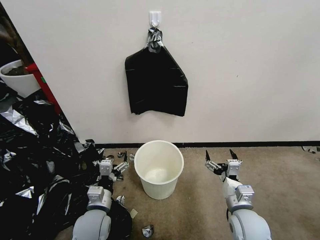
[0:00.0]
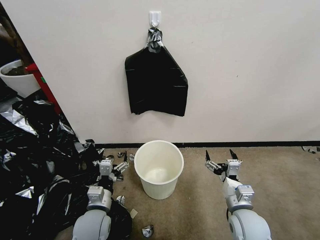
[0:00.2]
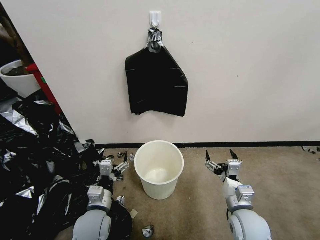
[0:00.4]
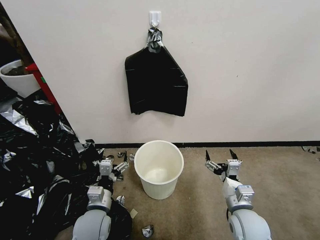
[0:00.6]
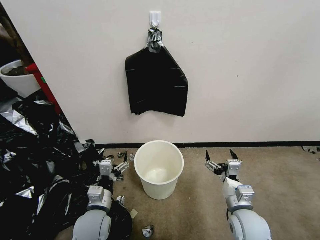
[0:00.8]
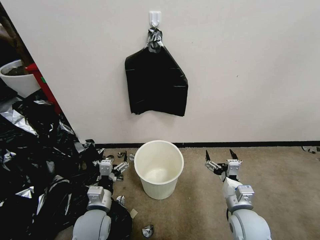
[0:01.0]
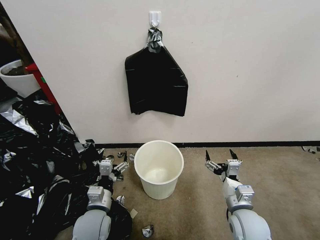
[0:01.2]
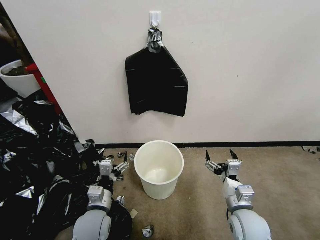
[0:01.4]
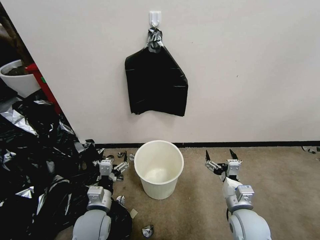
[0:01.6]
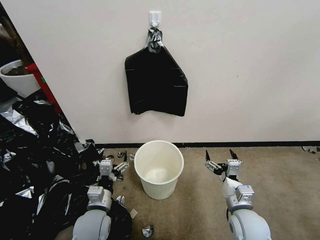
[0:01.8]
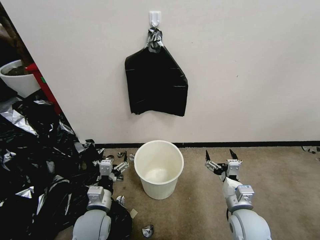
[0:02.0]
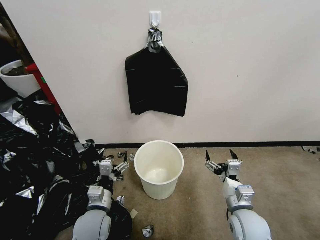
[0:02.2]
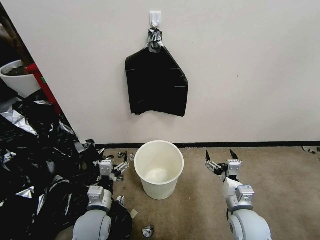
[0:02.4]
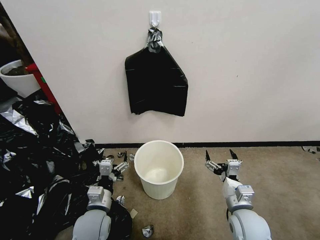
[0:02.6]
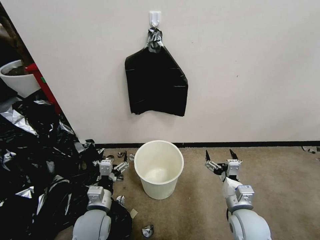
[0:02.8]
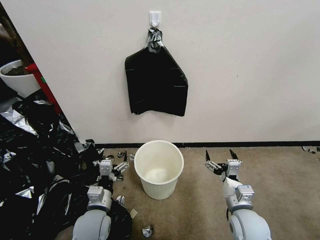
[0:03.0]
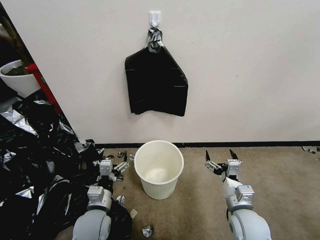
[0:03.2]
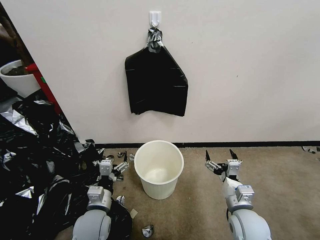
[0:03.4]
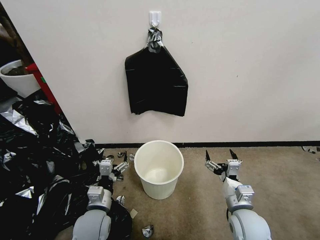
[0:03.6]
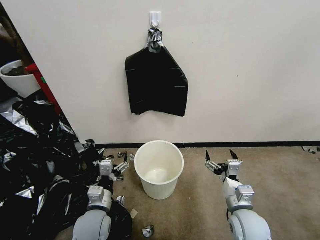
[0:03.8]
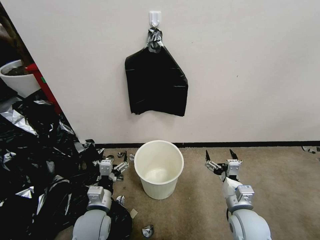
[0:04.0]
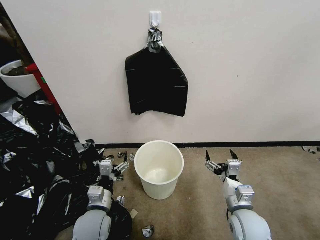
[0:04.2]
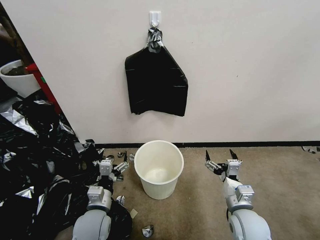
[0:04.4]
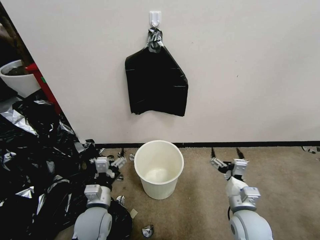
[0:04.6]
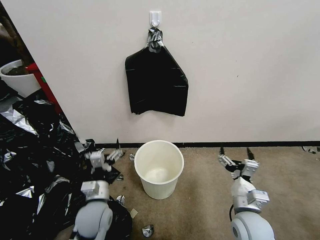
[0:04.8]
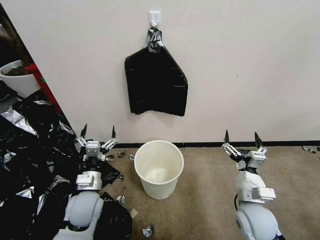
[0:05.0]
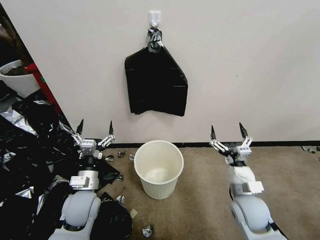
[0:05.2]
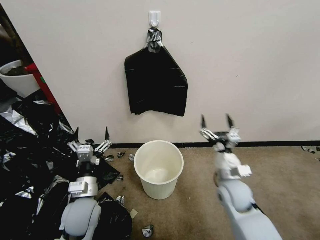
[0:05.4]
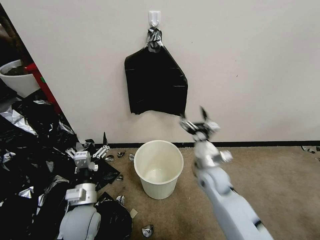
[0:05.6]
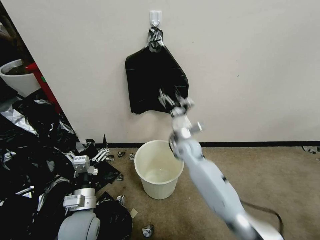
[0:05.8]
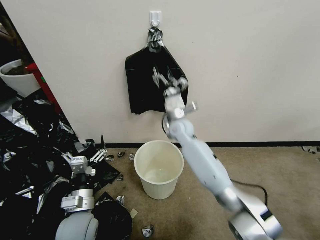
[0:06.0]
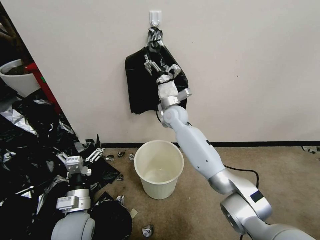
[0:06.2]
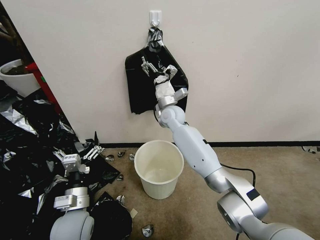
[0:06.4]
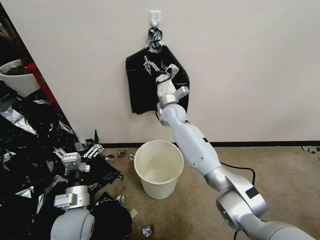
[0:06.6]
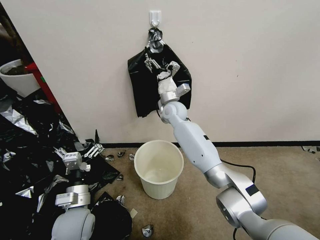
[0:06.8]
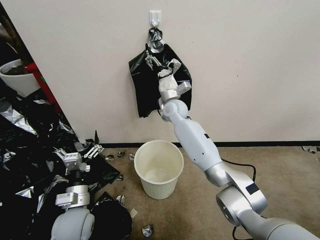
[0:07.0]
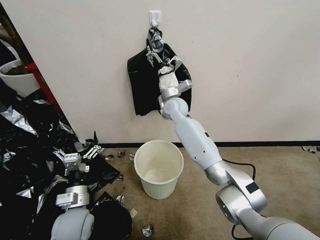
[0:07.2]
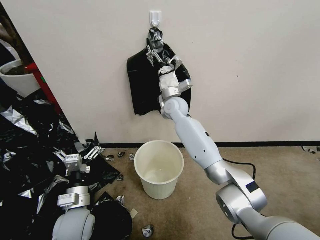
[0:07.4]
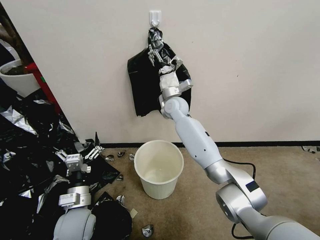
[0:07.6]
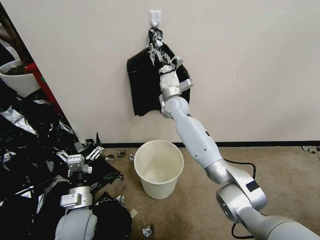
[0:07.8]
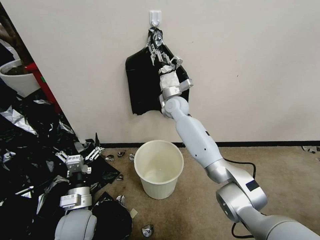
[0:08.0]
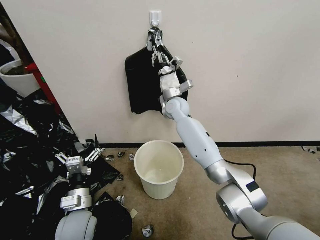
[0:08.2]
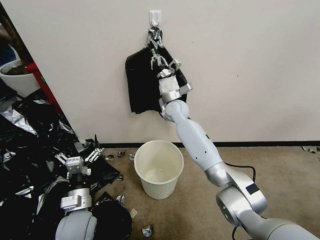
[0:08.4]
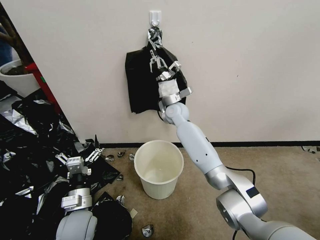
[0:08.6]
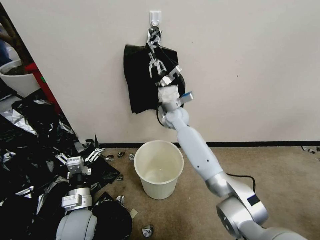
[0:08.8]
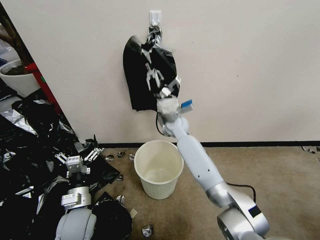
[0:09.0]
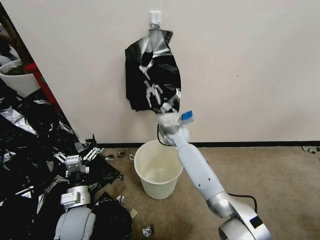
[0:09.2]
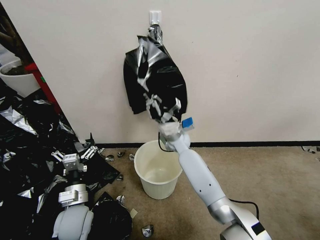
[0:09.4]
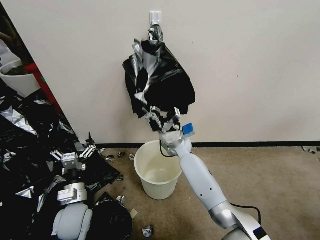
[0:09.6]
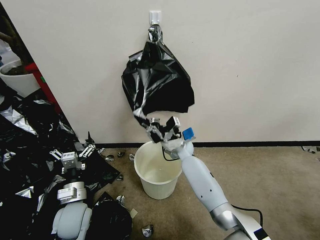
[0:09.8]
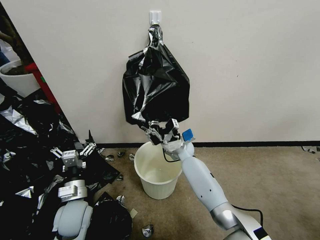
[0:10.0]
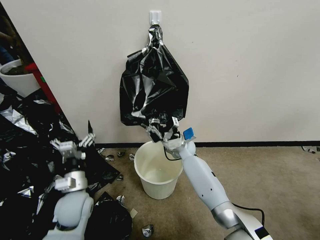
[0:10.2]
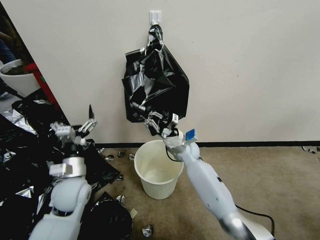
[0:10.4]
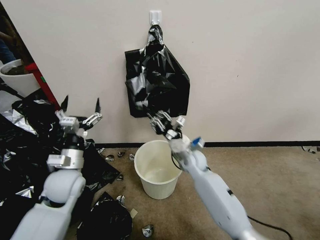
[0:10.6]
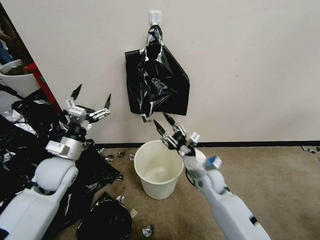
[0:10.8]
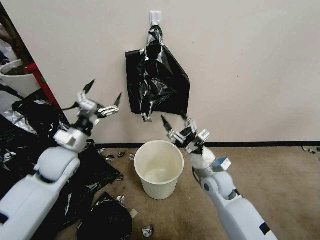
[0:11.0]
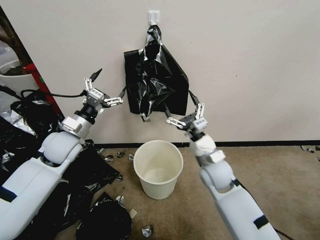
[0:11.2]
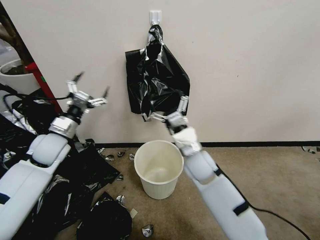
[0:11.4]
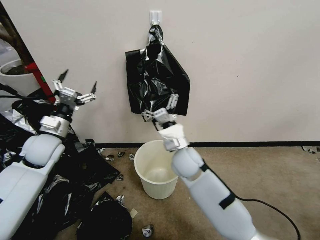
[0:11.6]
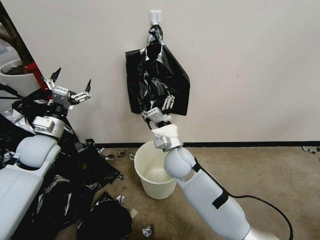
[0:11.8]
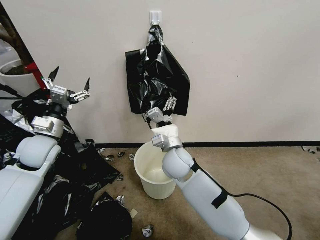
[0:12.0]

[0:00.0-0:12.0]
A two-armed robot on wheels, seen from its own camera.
Task of the whole recording: Place a trash bag onto the trash bin.
0:01.6 to 0:04.4: Both grippers stay about where they are.
0:04.4 to 0:06.0: The right gripper shifts some 35 cm forward and to the left.
0:06.0 to 0:07.6: The right gripper heads forward, covering about 5 cm.
0:07.6 to 0:09.0: The right gripper shifts some 10 cm downward and backward, and closes up.
0:09.0 to 0:10.4: The left gripper travels forward and upward by roughly 10 cm. Meanwhile the right gripper goes about 10 cm downward.
0:10.4 to 0:12.0: The right gripper goes approximately 15 cm backward, upward and to the left, and opens its fingers. Meanwhile the left gripper heads to the left, upward and forward, covering about 15 cm.

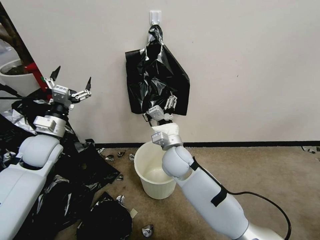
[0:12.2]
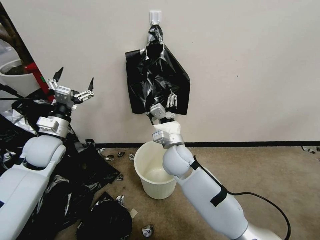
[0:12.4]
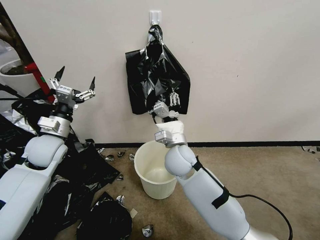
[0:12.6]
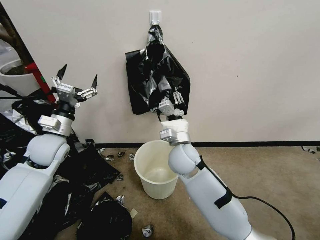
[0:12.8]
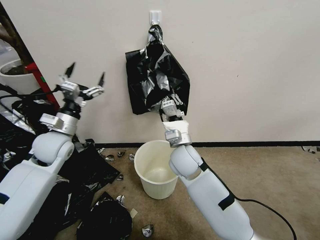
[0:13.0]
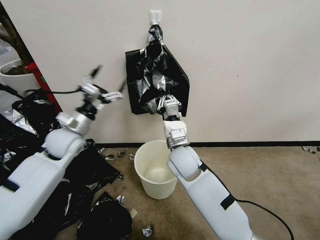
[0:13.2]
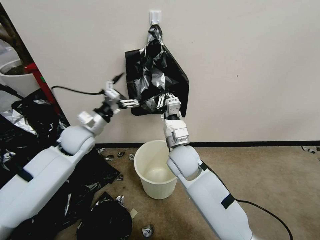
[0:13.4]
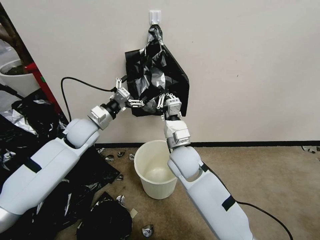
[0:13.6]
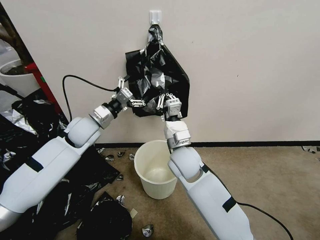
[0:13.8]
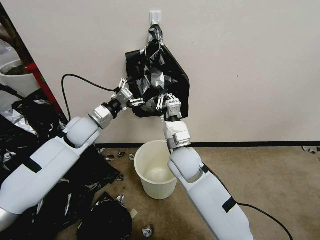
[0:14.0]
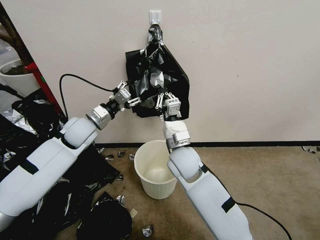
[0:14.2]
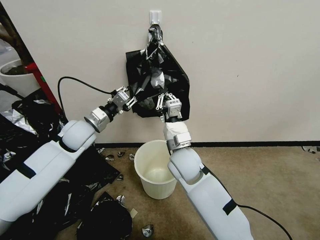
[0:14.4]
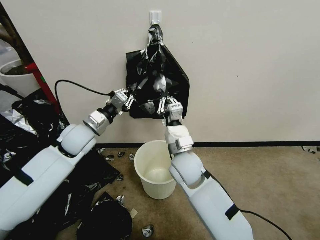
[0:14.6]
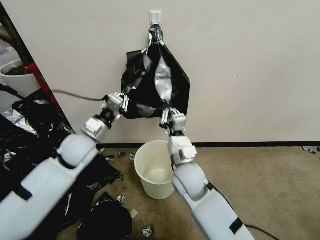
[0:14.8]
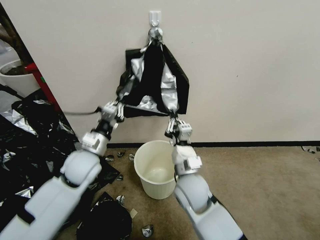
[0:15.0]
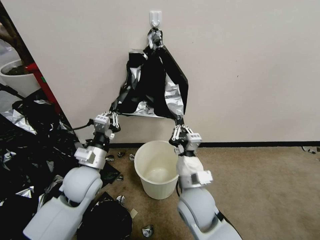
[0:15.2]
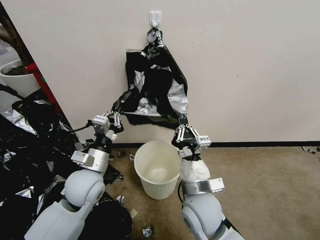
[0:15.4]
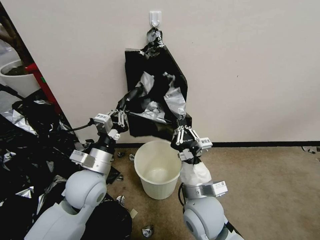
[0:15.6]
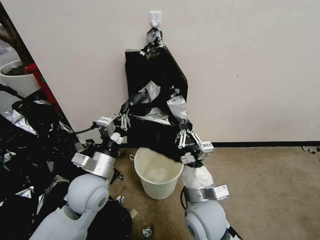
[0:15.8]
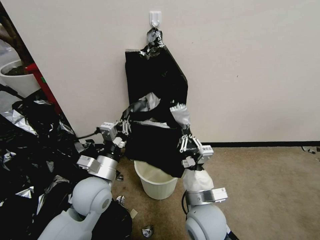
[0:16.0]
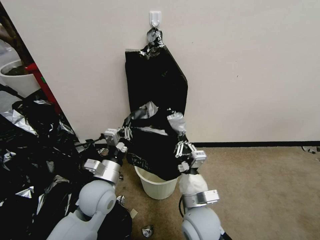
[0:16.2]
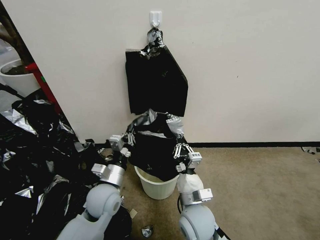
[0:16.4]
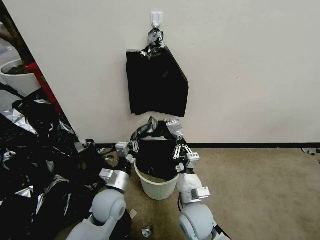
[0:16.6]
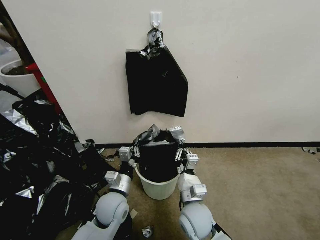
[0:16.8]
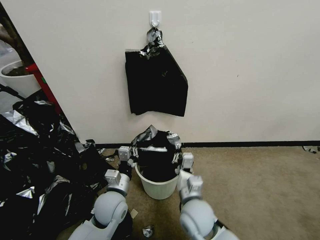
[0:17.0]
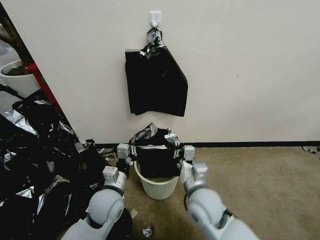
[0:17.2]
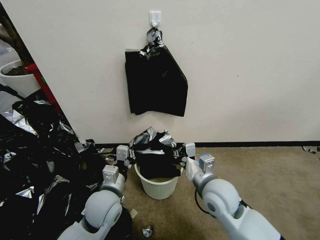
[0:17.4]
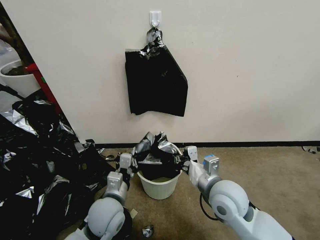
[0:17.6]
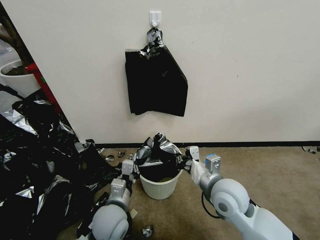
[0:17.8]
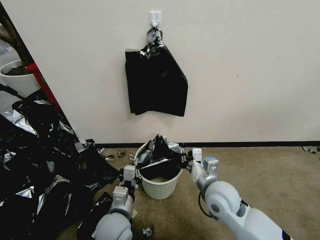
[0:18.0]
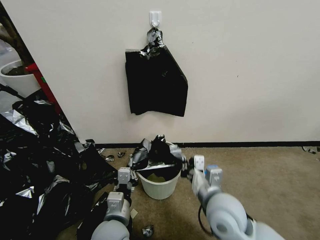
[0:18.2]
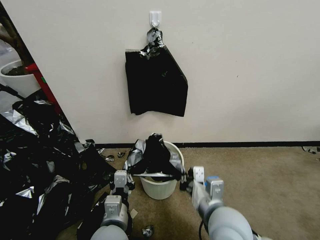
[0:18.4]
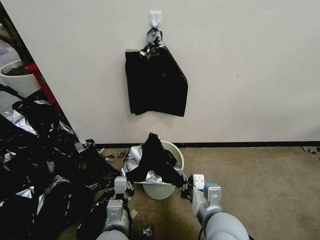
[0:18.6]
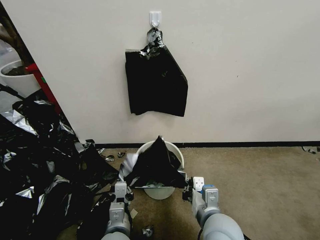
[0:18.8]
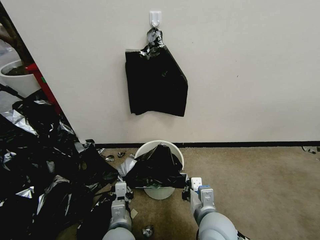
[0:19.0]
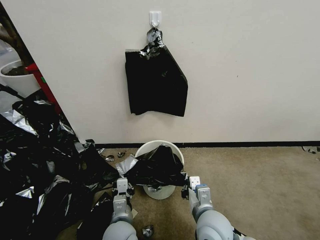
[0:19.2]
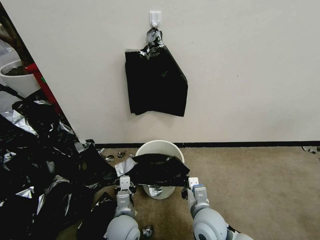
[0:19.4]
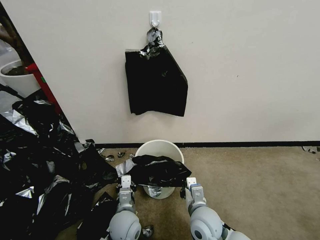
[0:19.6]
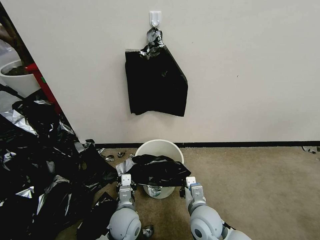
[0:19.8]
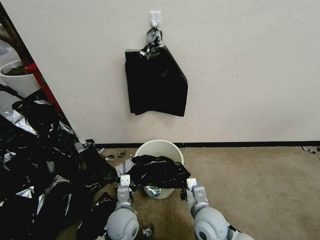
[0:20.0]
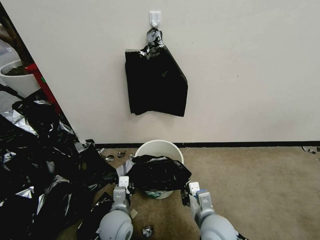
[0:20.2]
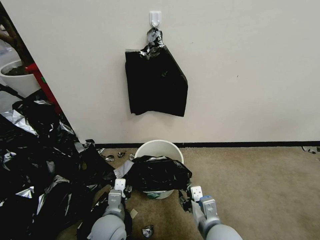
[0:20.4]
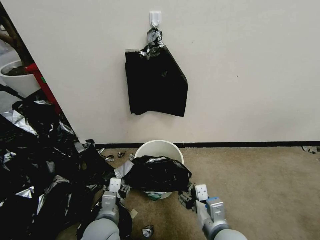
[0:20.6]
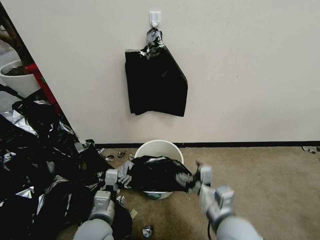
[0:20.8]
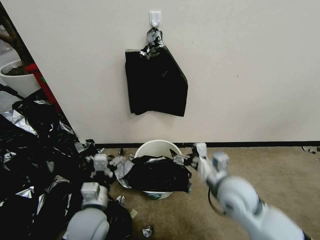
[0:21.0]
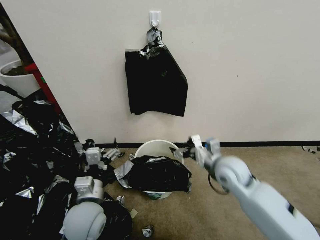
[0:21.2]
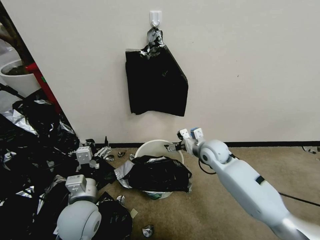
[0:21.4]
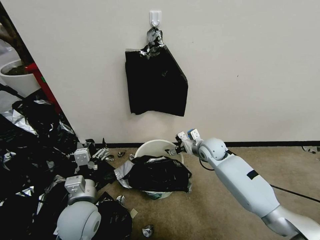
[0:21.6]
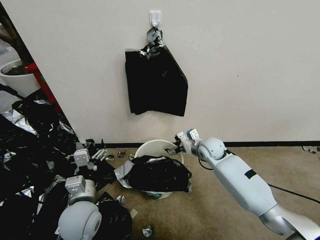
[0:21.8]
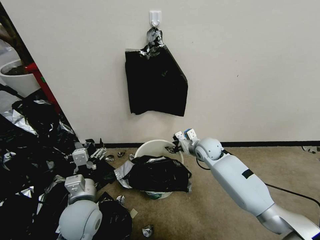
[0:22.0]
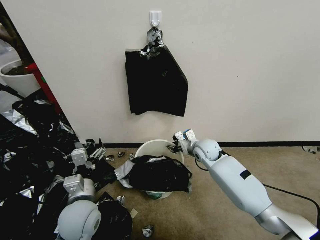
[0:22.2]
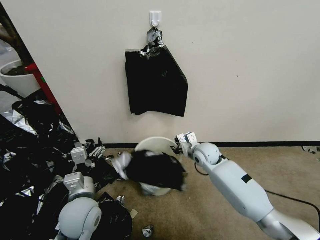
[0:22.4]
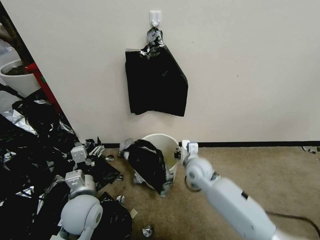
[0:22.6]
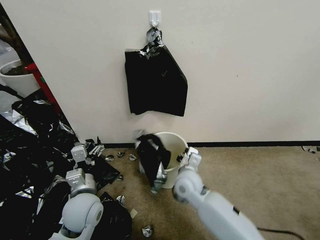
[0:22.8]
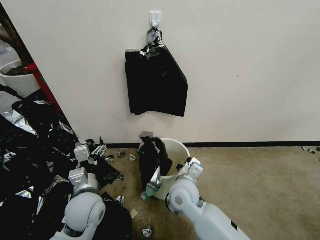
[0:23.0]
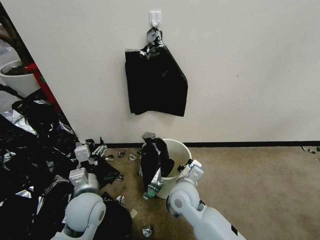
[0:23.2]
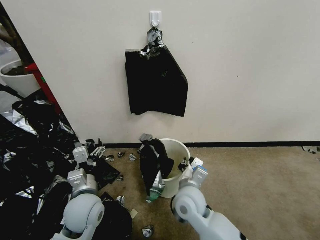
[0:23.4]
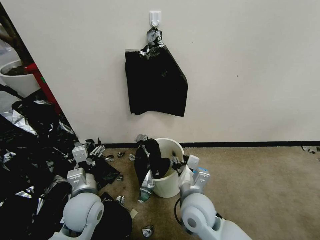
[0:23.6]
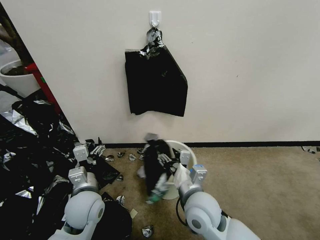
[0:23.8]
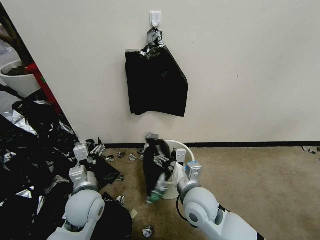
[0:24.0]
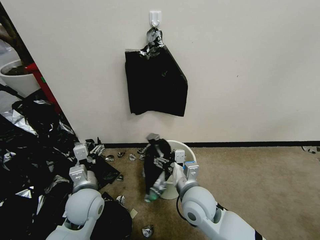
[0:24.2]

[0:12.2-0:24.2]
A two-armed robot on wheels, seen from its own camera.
Task of the whole recording: Place a trash bag onto the trash bin.
0:12.2 to 0:13.8: The right gripper closes its fingers, while the left gripper goes some 15 cm to the right and forward.
0:13.8 to 0:15.2: Both grippers move backward, roughly 15 cm. The left gripper closes.
0:15.2 to 0:16.6: The right gripper shifts some 10 cm downward. The left gripper travels downward and to the right by roughly 10 cm.
0:16.6 to 0:18.2: The left gripper shifts approximately 10 cm backward. The right gripper is displaced upward and to the right by about 10 cm.
0:18.2 to 0:19.8: The right gripper heads downward, covering roughly 10 cm. The left gripper goes approximately 10 cm downward and forward.
0:19.8 to 0:21.2: The right gripper goes some 20 cm forward, upward and to the right, and opens, while the left gripper travels upward and to the left by roughly 15 cm, and opens its fingers.
0:21.2 to 0:22.6: The right gripper travels downward and to the left by roughly 10 cm, reaches about 10 cm forward, then returns, and closes up.
0:22.6 to 0:24.2: The right gripper goes roughly 15 cm backward, and opens its fingers.
